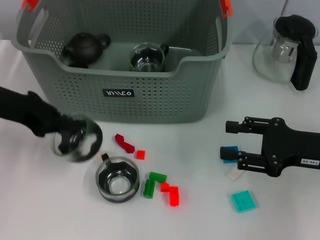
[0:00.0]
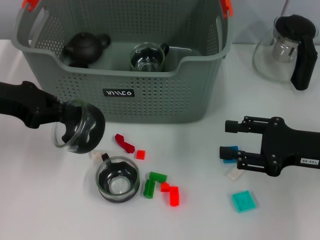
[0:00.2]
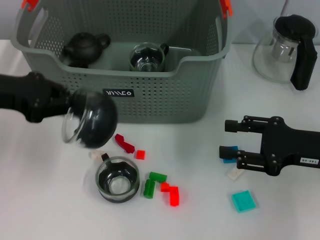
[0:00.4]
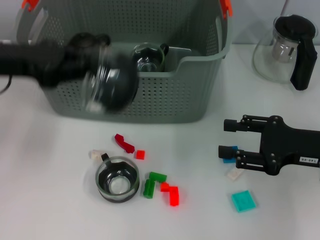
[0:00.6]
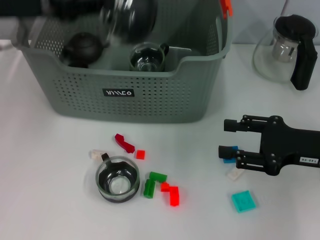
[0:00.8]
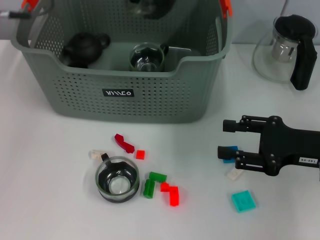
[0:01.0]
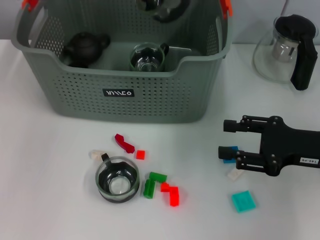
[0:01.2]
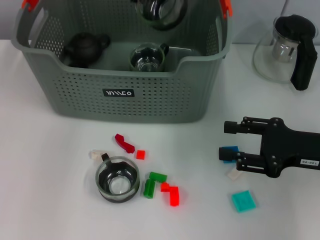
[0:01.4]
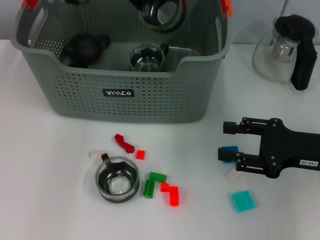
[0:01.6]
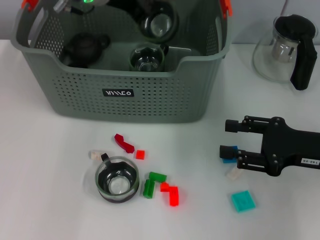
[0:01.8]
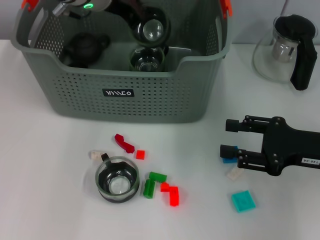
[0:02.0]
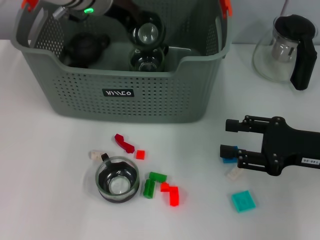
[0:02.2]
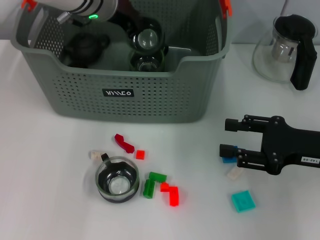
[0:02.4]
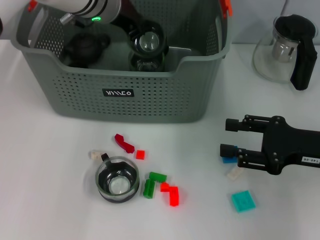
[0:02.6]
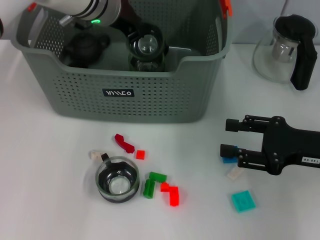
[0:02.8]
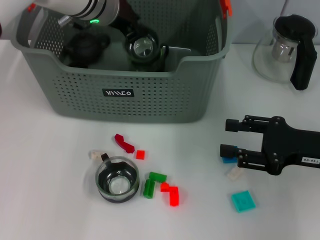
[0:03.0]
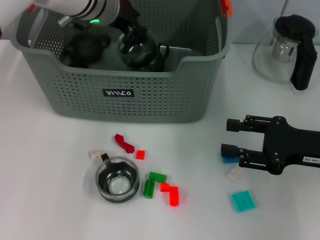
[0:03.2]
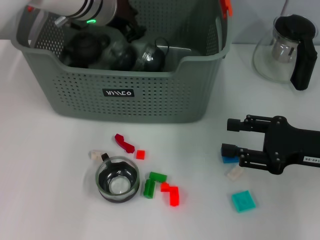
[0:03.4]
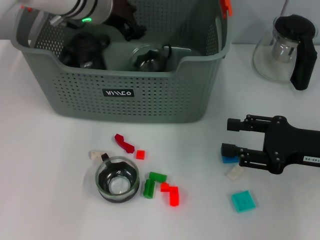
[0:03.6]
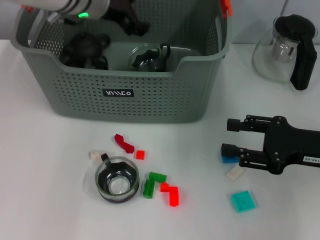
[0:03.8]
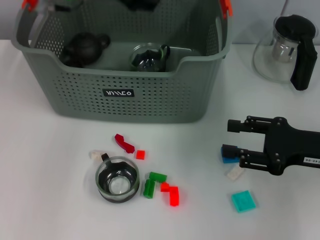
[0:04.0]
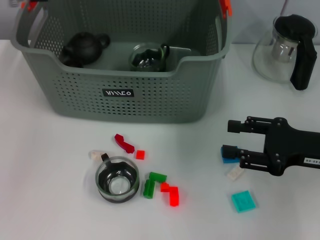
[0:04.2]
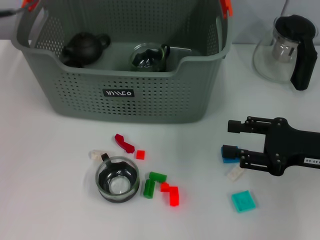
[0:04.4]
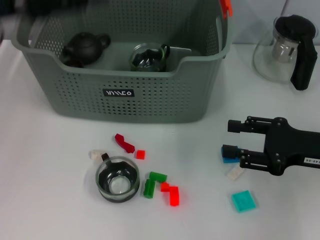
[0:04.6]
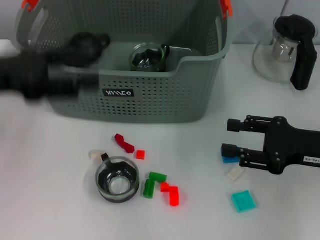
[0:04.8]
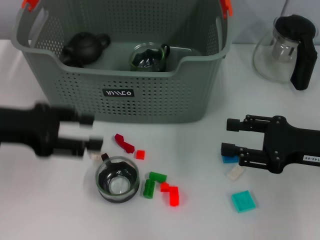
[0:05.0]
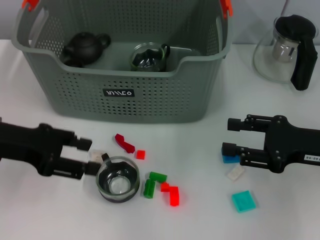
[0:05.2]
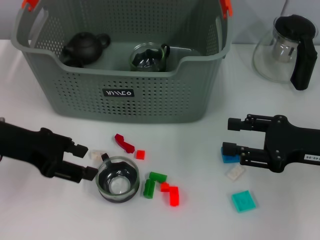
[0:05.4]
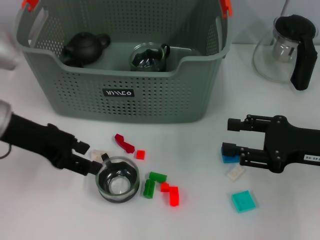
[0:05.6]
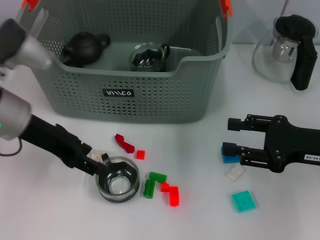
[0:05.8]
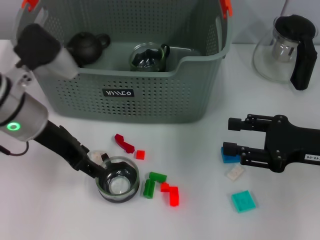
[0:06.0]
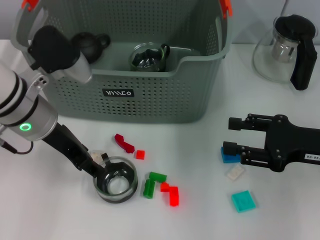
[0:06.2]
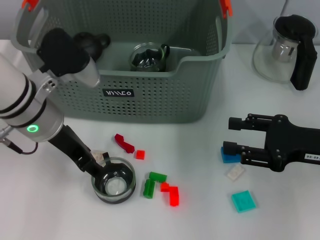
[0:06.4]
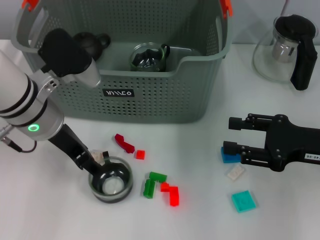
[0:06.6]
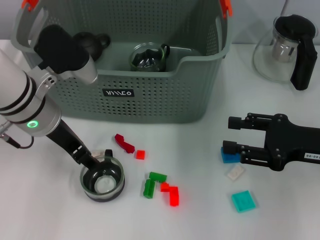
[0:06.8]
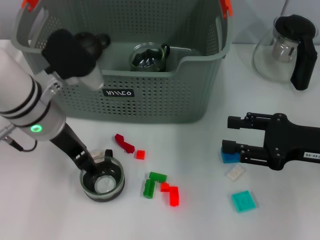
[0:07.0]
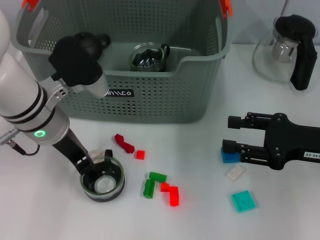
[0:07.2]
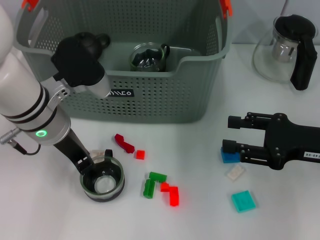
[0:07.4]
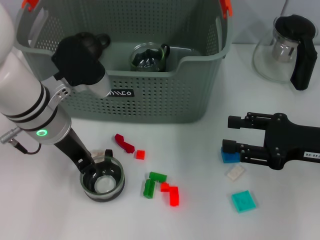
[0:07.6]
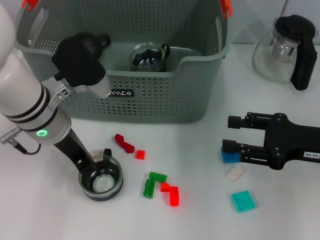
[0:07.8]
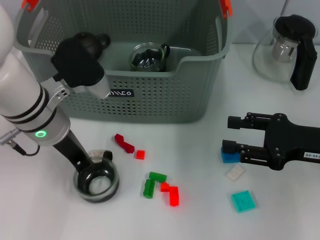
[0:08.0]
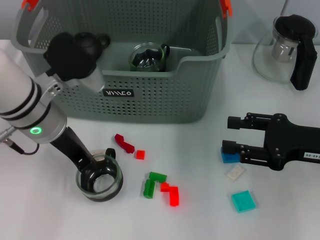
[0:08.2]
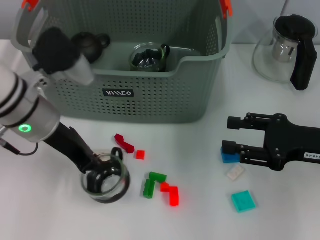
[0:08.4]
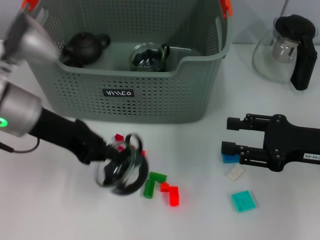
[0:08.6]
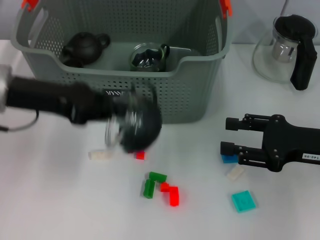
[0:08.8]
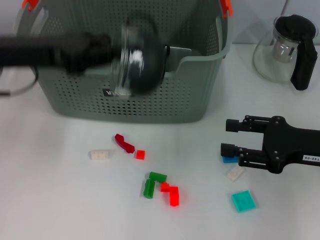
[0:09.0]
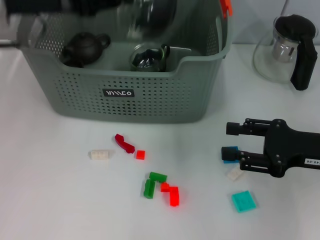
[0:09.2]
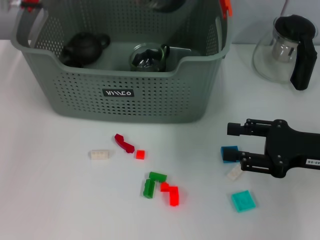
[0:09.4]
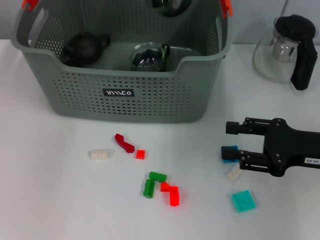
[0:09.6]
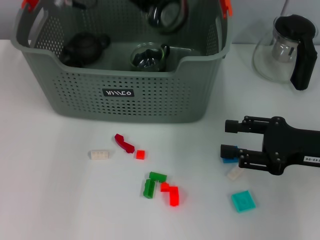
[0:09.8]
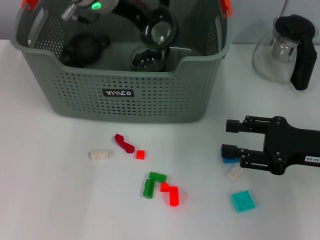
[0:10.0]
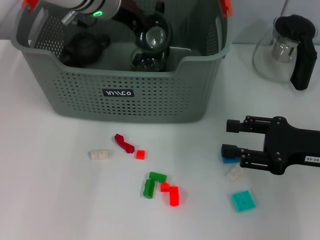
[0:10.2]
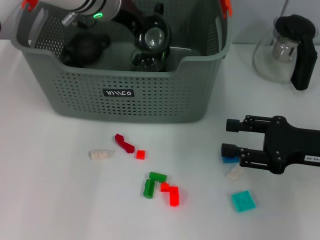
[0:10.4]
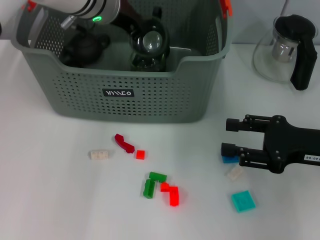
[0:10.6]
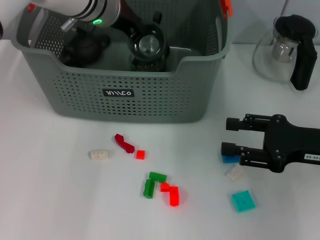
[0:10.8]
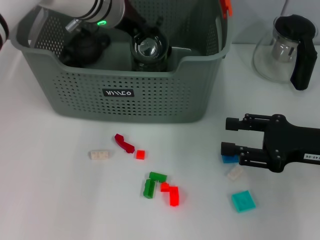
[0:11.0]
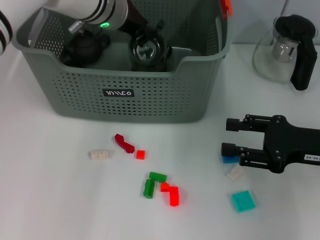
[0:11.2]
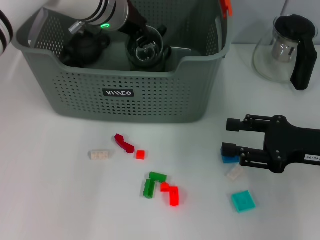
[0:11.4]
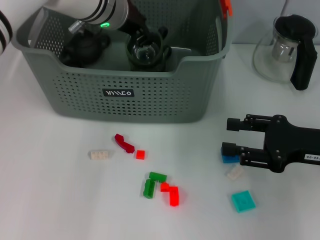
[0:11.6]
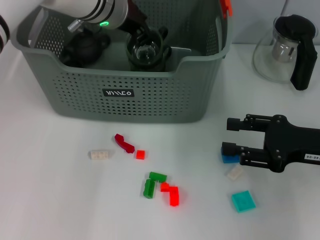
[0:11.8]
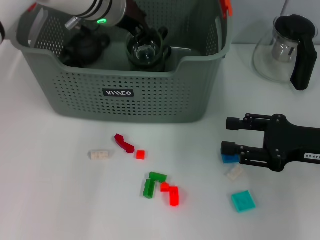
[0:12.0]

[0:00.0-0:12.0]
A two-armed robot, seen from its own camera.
Task of the whole recording: pick up the teacup on the table and place it into the storage bin, pick up the block on the table and place it into the storage bin.
Step, 0:00.0 to 0:03.0: Place the cup in the storage box with left gripper.
Step, 0:03.4 to 0:08.0: Grasp the cup with left gripper.
Step, 0:08.2 to 0:11.6: Place the cup in the storage box with left gripper.
0:00.0 to 0:01.6: The left gripper shifts some 20 cm to the right, forward and upward.
0:01.6 to 0:03.0: The left gripper moves downward, some 5 cm.
0:03.0 to 0:04.4: The left gripper moves to the left, backward and upward, roughly 15 cm, and opens up.
0:04.4 to 0:06.0: The left gripper heads downward, covering roughly 10 cm.
0:06.0 to 0:07.6: There are only small adjustments of the grippers.
0:07.6 to 0:09.0: The left gripper moves to the left and upward, about 10 cm, and closes its fingers.
0:09.0 to 0:10.4: The left gripper moves to the right and forward, approximately 20 cm.
0:10.4 to 0:12.0: The left gripper opens.

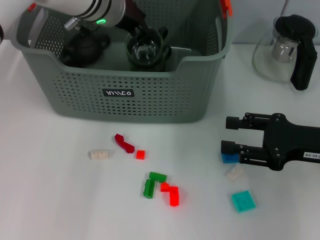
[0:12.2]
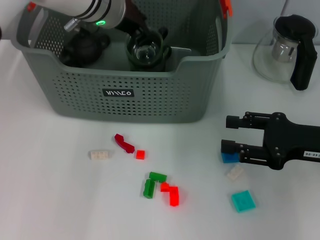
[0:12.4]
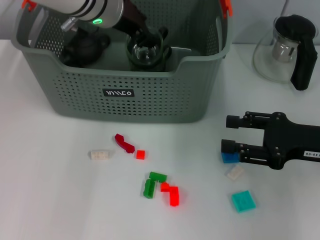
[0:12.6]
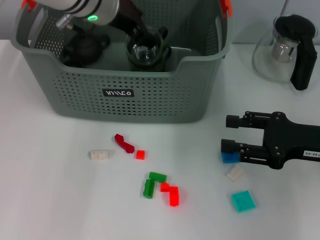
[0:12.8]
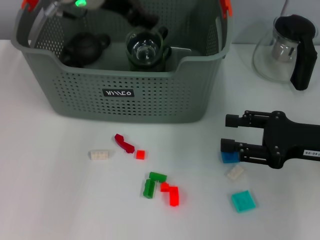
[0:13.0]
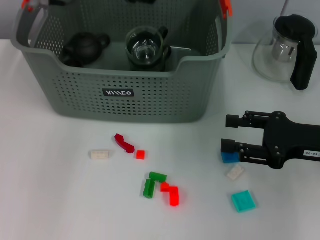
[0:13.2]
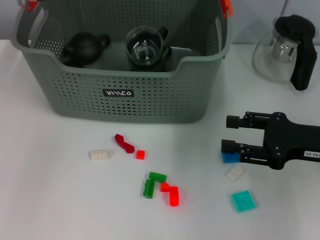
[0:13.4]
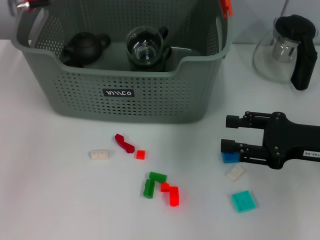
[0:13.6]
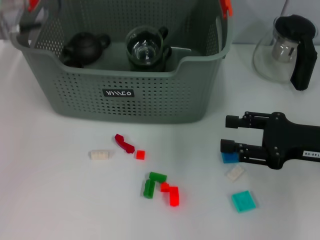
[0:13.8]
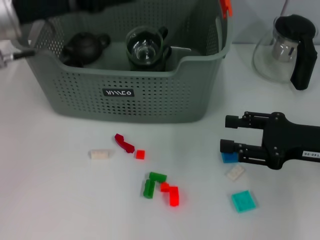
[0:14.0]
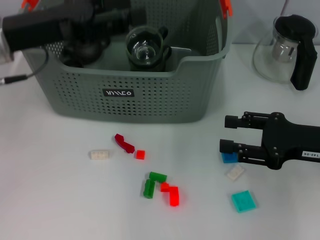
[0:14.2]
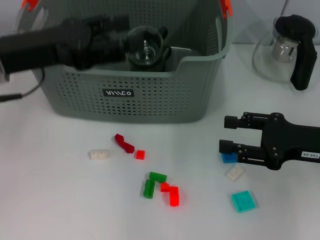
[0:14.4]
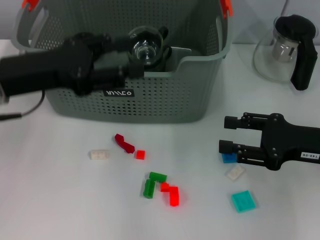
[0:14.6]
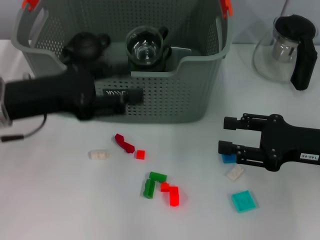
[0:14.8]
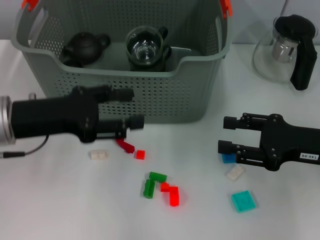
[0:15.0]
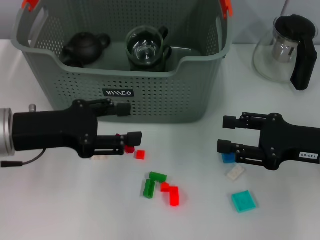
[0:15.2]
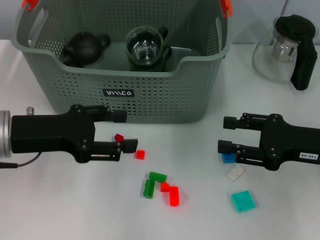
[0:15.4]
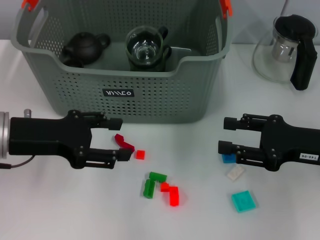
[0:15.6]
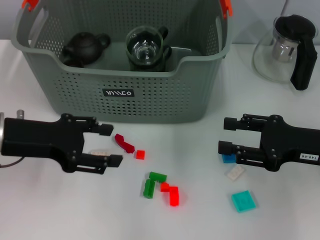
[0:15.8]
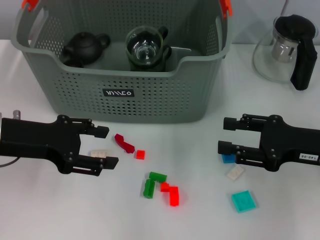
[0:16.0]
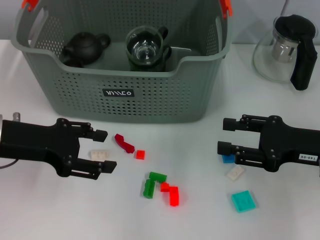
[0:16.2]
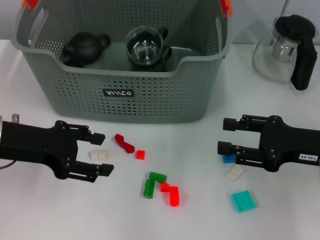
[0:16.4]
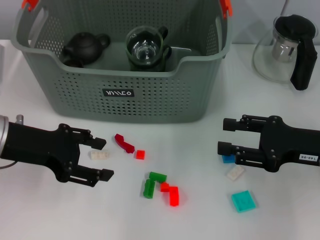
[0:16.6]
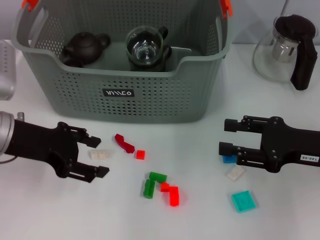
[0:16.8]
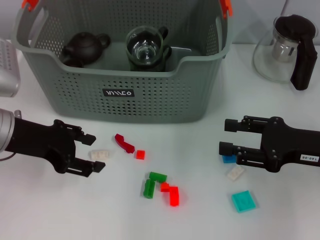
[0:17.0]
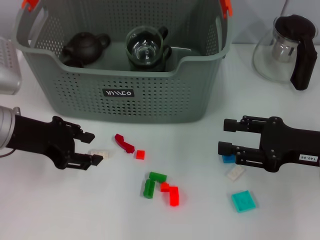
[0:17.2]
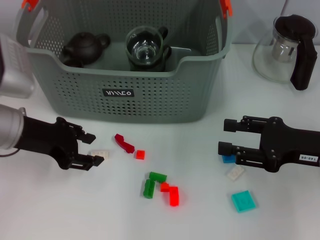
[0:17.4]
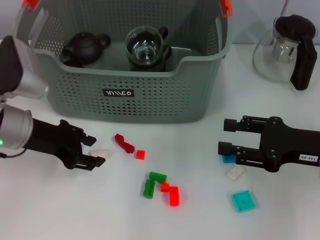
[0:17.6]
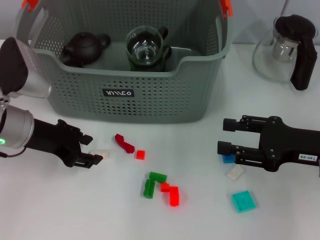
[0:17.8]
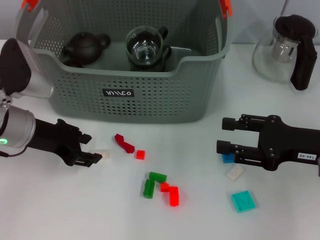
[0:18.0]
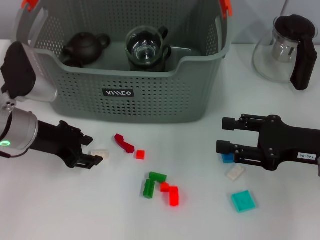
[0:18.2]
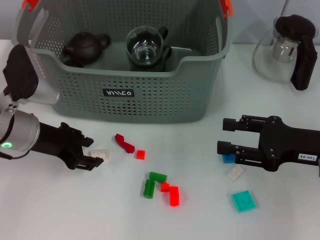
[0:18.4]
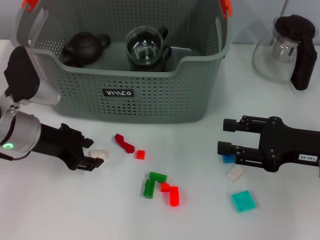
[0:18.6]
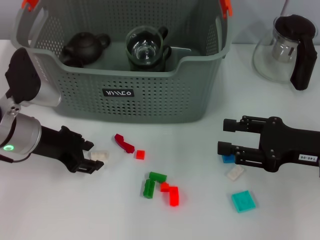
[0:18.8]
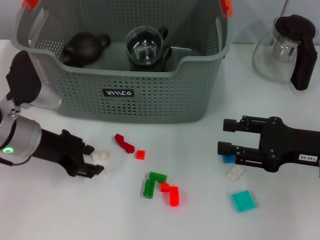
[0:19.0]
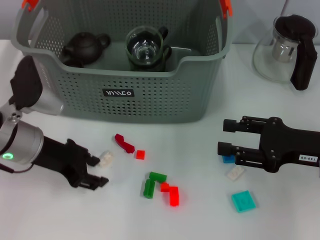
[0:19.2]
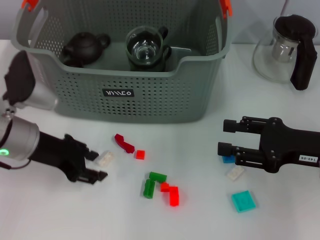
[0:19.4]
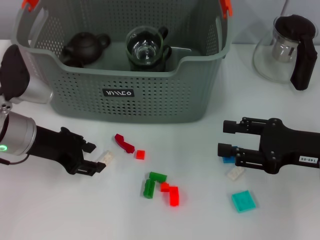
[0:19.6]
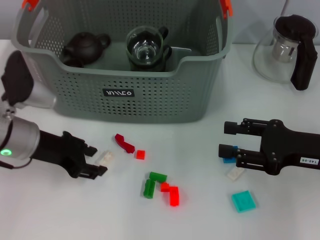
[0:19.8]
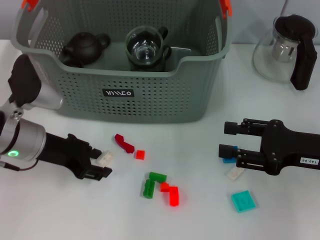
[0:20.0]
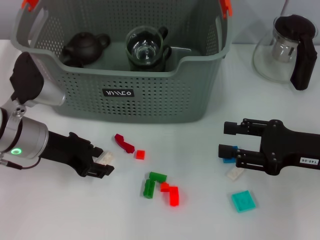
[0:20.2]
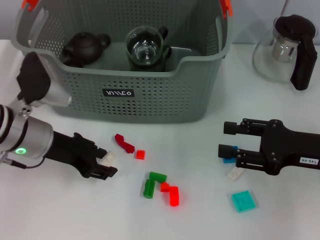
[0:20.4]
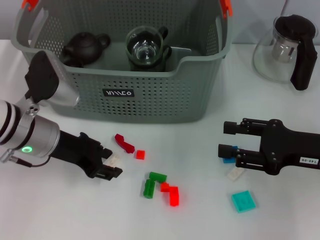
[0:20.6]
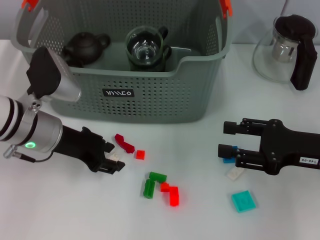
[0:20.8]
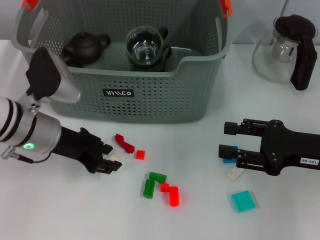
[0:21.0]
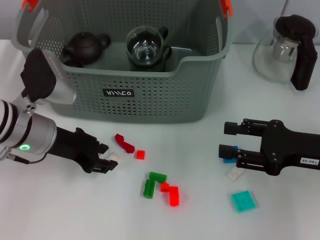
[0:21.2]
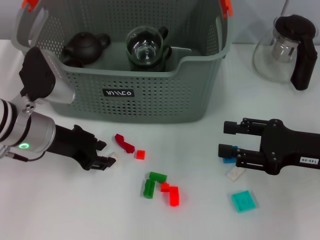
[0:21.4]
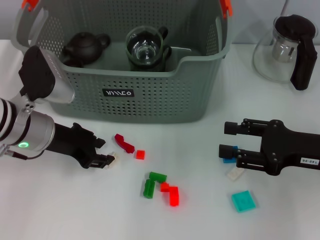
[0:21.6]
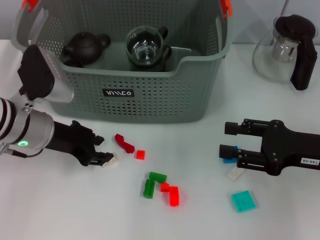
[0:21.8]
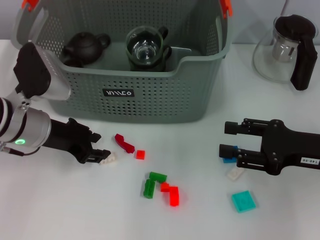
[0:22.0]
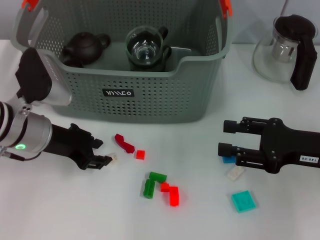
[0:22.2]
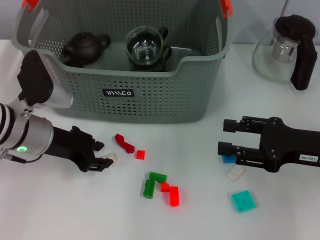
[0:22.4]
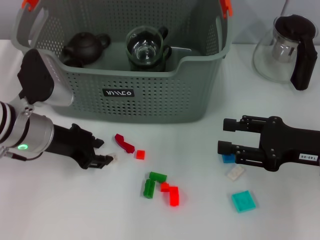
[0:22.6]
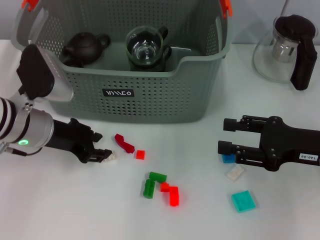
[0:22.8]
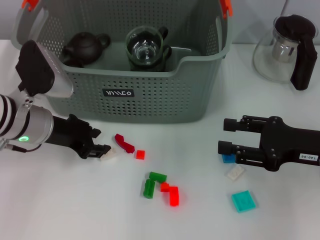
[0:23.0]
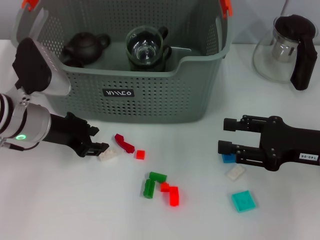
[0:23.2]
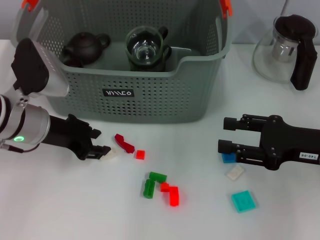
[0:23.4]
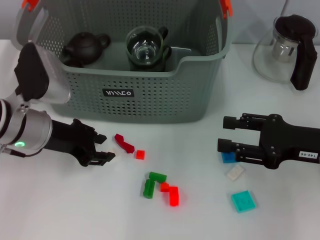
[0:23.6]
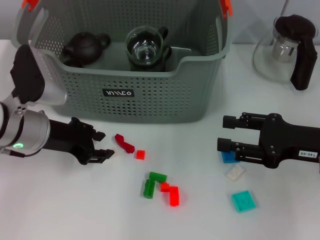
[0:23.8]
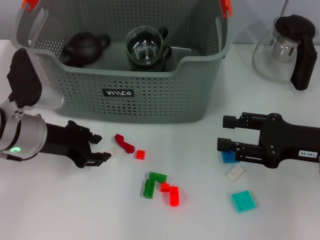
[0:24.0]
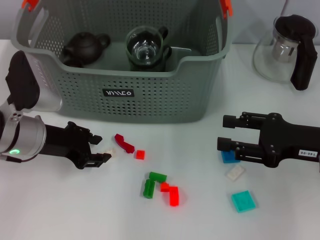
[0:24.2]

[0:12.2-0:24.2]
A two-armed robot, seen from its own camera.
Task of the whole recording: pick up the teacup on the table and place it into the storage bin, pick up the block on the table and place it into the storage bin.
0:12.2 to 0:13.8: The left gripper goes roughly 15 cm to the left and backward, and opens up.
0:13.8 to 0:15.2: The left gripper goes about 15 cm downward and backward.
0:16.6 to 0:18.2: The left gripper ends up roughly 5 cm from where it was.
0:18.2 to 0:21.2: The grippers stay close to where they were, moving slightly.
0:21.2 to 0:22.6: Both grippers stay about where they are.
0:22.6 to 0:24.2: There are only small adjustments of the grippers.
